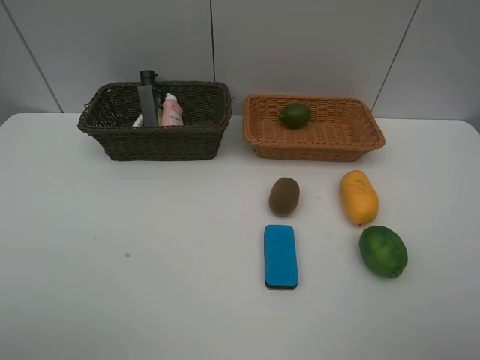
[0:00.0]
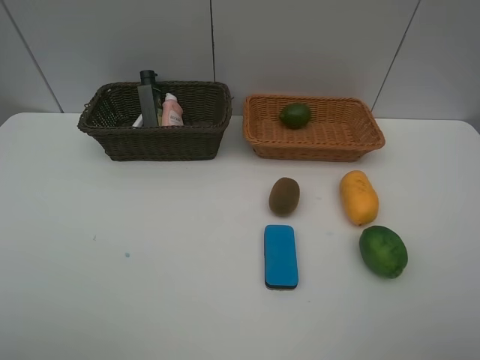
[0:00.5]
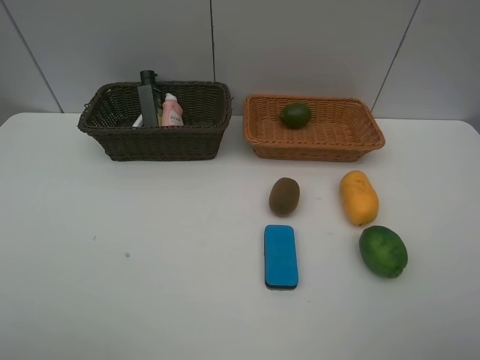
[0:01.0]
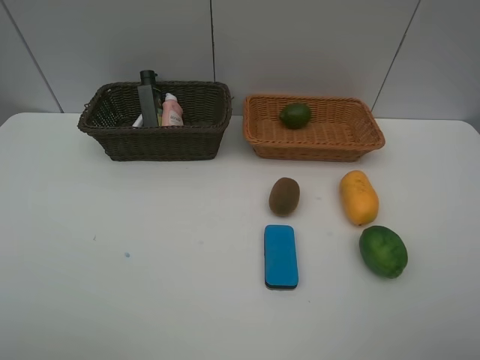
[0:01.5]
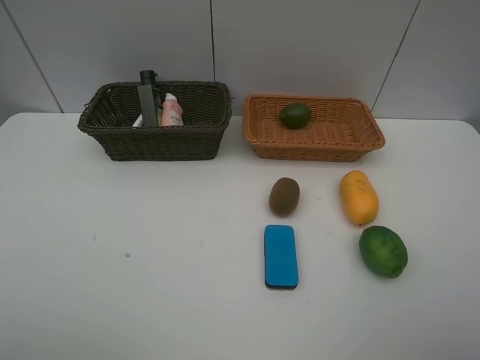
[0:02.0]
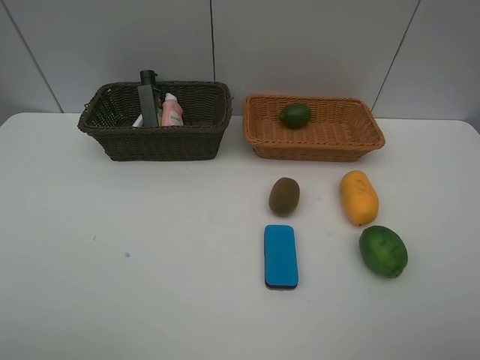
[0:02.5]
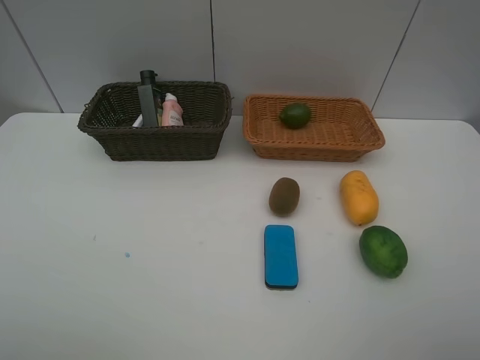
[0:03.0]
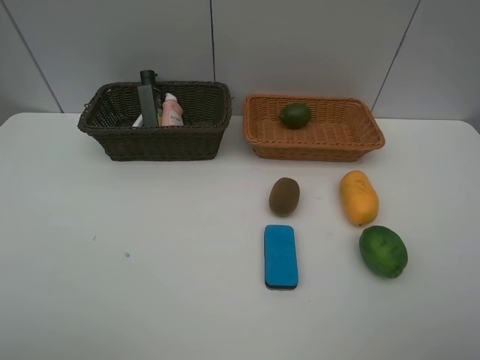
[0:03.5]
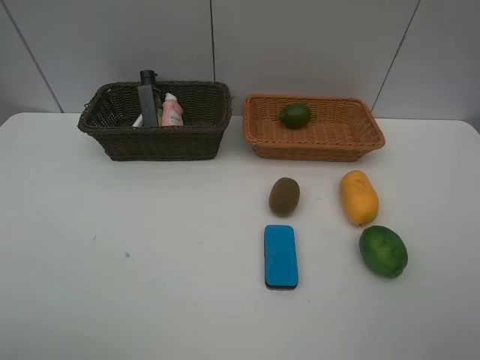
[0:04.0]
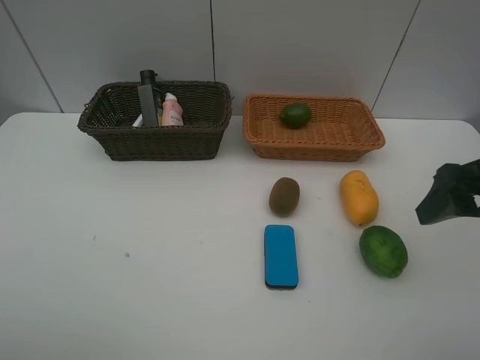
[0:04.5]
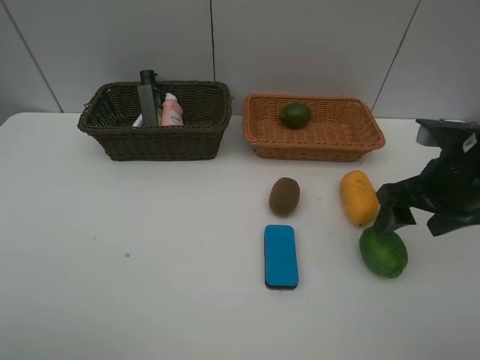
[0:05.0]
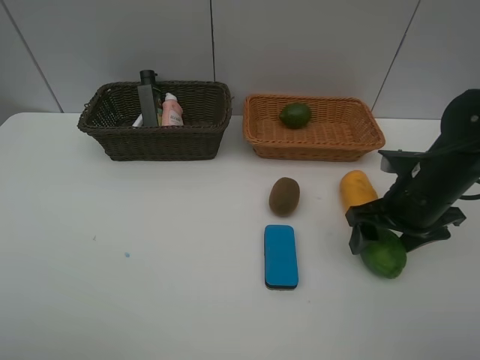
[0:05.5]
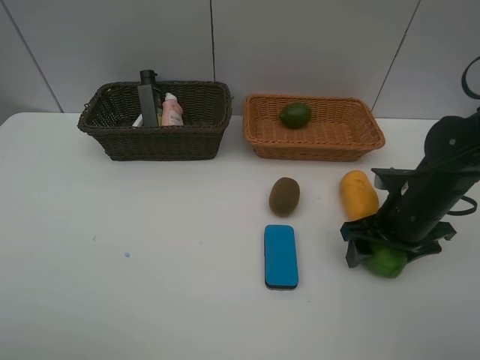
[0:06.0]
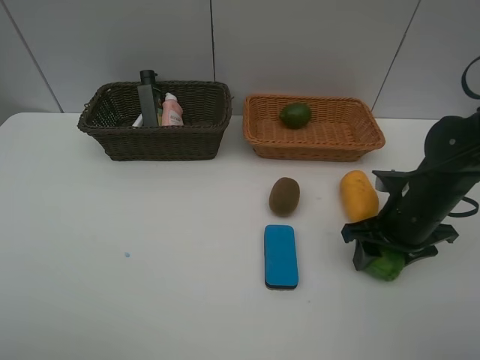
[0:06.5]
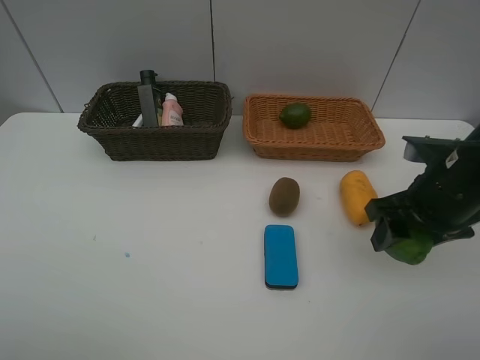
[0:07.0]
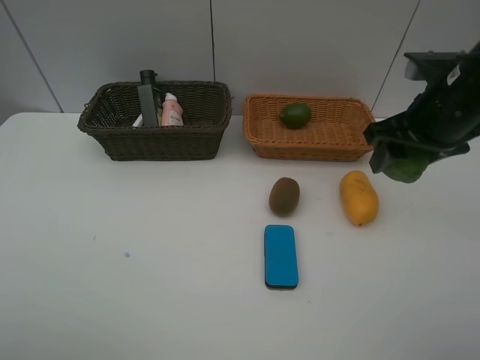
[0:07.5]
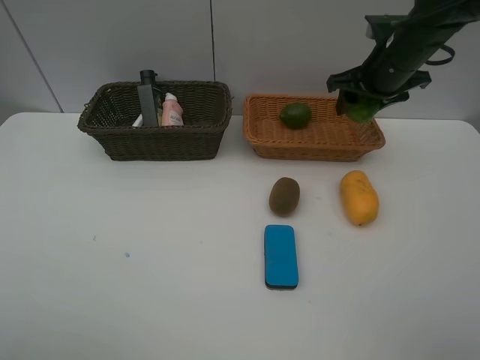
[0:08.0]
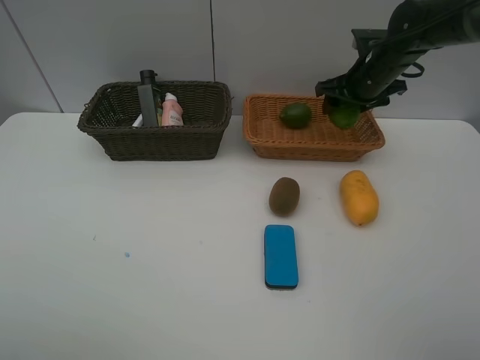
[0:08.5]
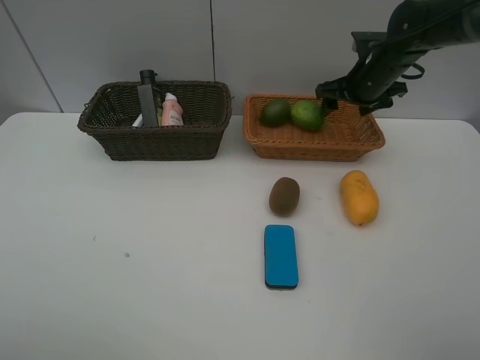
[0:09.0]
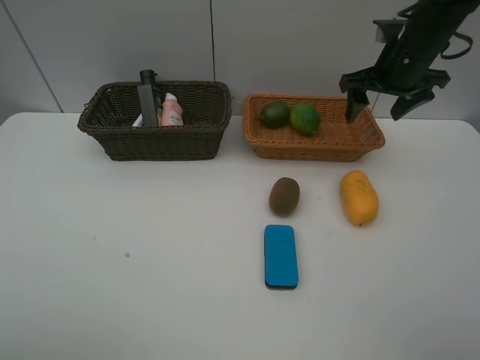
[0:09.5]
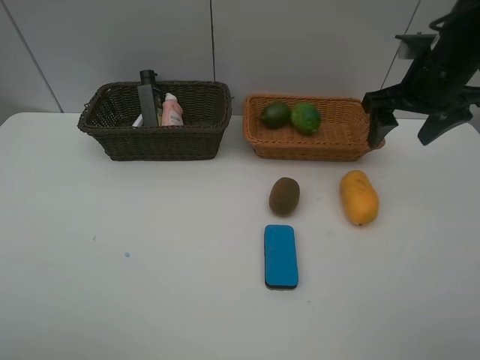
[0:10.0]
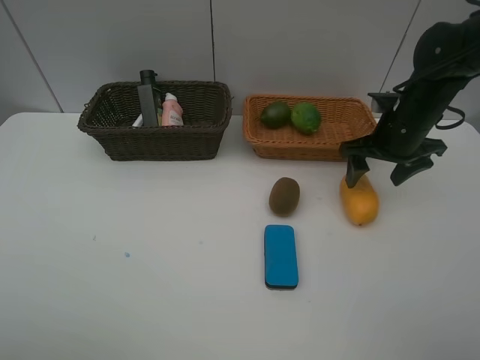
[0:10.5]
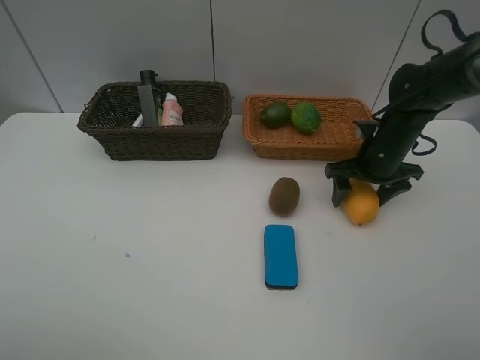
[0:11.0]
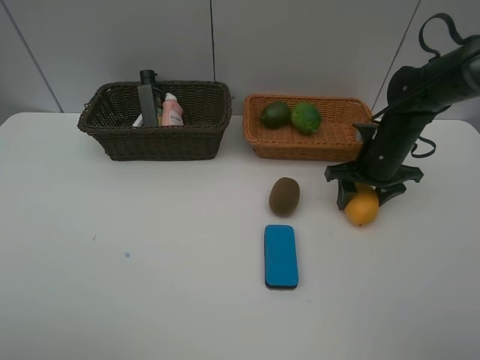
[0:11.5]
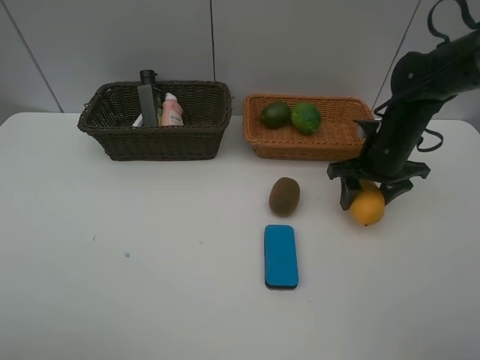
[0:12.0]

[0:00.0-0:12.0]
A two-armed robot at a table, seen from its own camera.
Task of the whole recording: Place multiple objects separately in different baskets.
Step, 0:00.0 to 0:07.0: Pick up the lime with right gripper.
Step, 0:07.5 to 0:09.0: Place the lime in the light basket with right gripper.
0:04.0 to 0:06.0: The right gripper moves downward and forward, about 25 cm.
0:06.0 to 0:08.0: The right gripper shifts approximately 20 cm forward and upward, and closes.
0:08.0 to 0:10.0: The right gripper goes approximately 10 cm backward, and opens its fingers.
0:10.0 to 0:12.0: The right gripper travels downward by approximately 10 cm, and closes up.

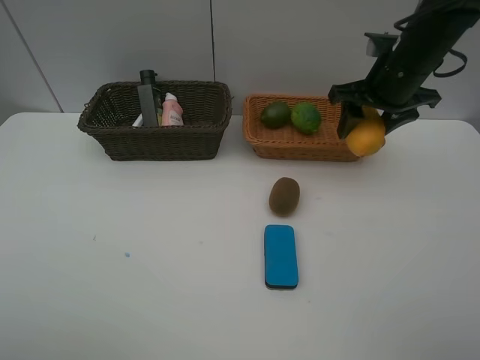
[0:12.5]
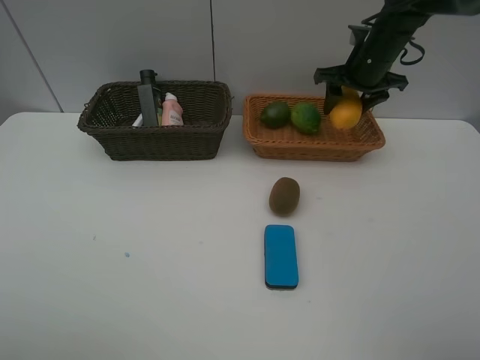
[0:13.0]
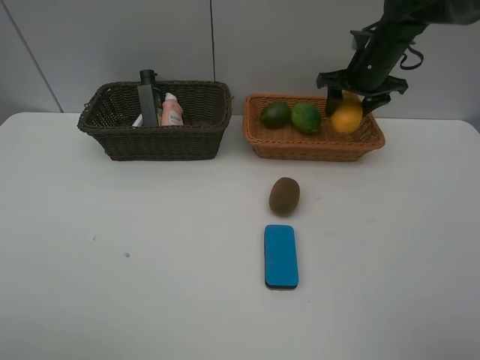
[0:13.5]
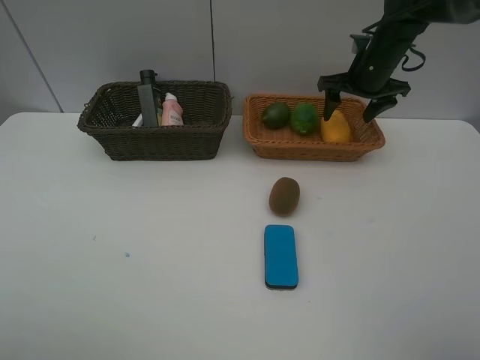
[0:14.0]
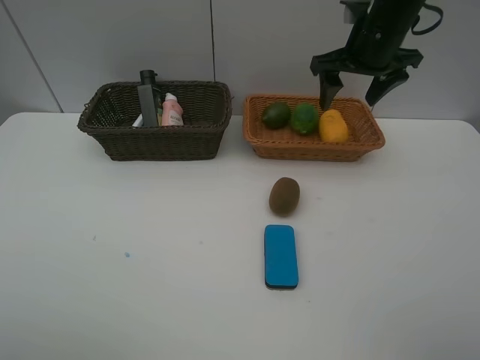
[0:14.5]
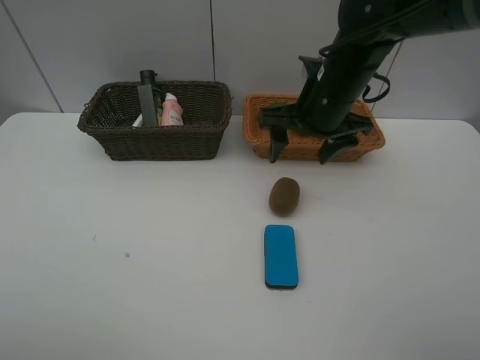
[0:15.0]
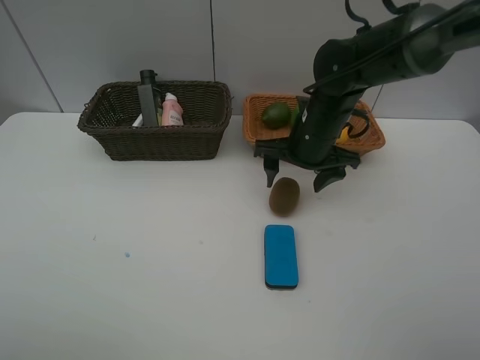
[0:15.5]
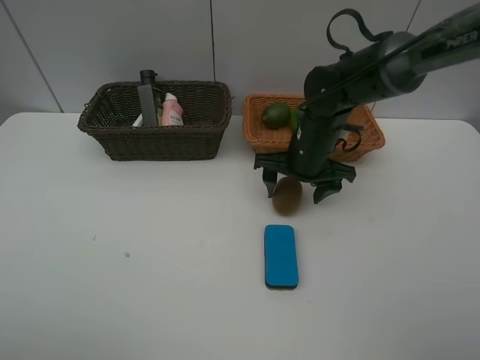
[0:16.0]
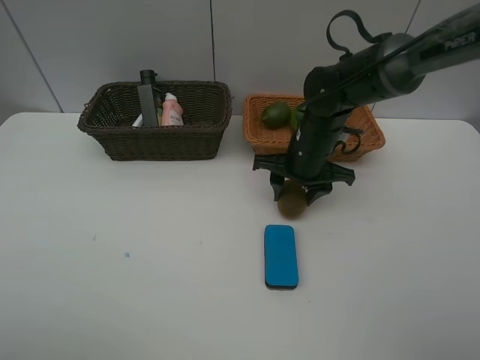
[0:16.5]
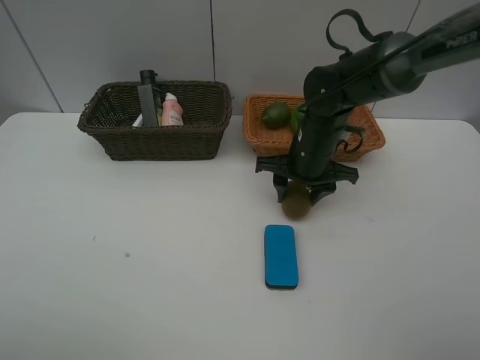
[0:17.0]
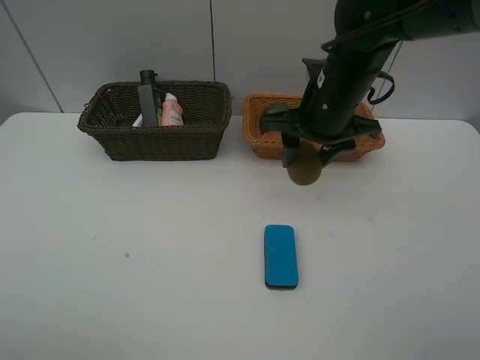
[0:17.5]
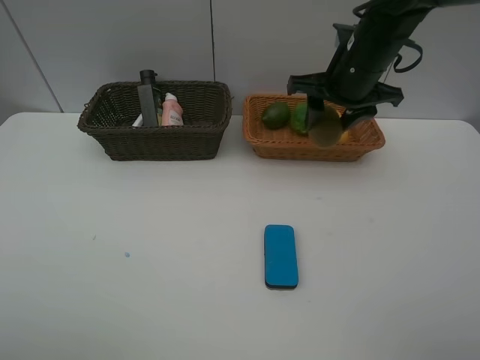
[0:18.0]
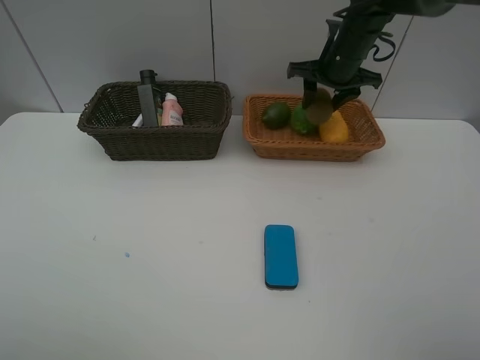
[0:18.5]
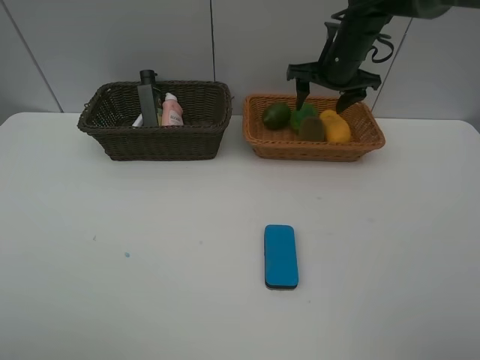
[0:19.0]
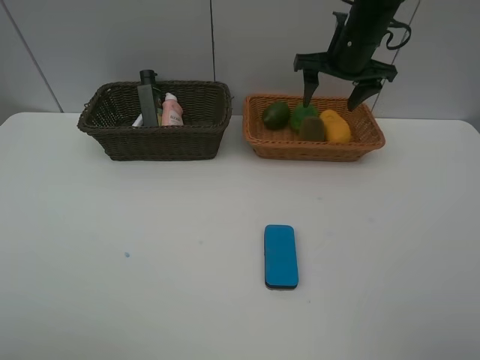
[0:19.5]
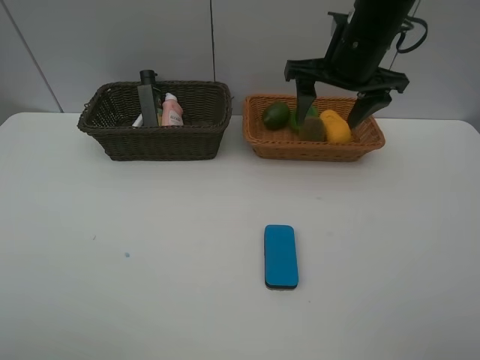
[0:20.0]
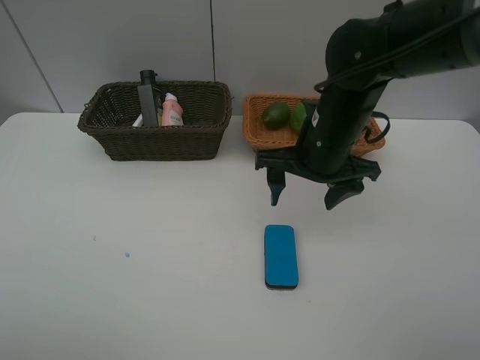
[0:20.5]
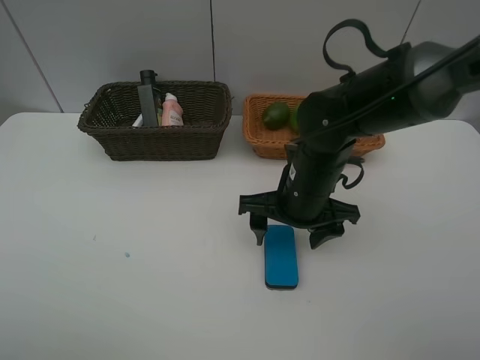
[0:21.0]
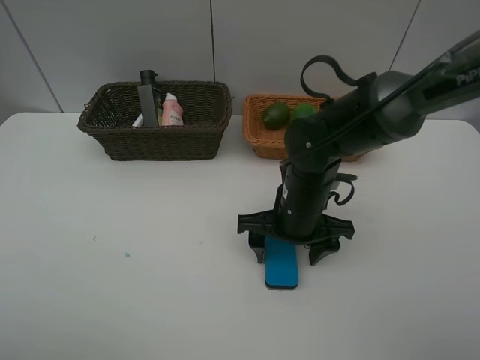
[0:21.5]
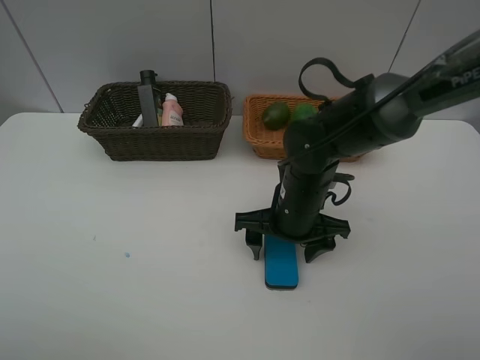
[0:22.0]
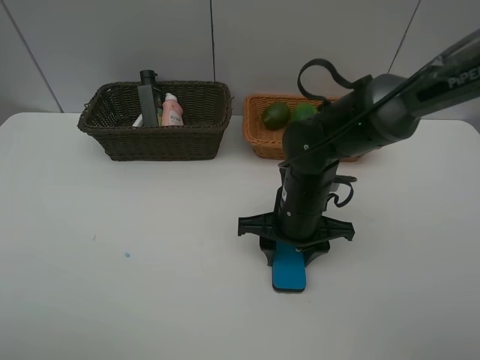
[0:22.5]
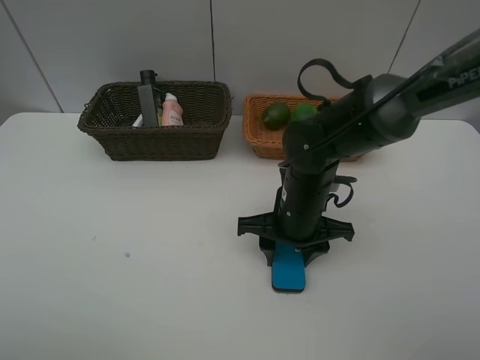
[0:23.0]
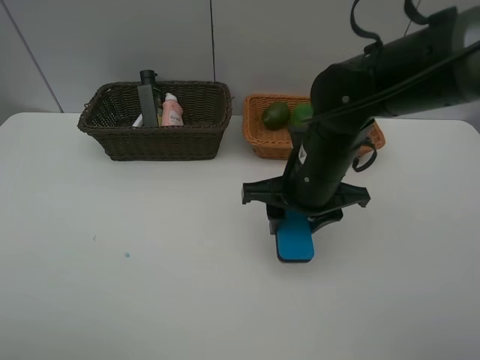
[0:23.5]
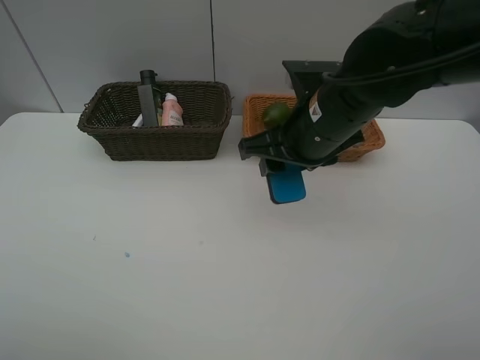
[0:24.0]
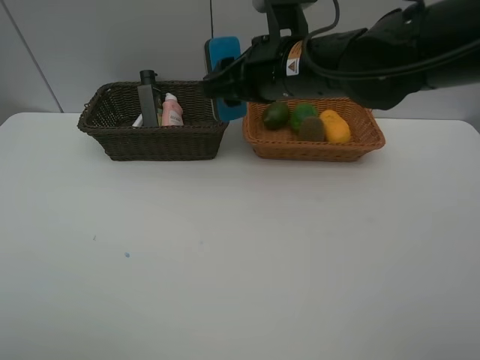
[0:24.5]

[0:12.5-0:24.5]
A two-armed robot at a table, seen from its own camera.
Task of the whole recording: Place multiple objects separately in different baskets.
Step, 0:12.5 to 0:14.0: Place the mango in the light basket with right gripper.
Step, 0:14.5 to 0:17.0: Pick up kiwi with right gripper.
Step, 0:17.5 to 0:19.0: Place the kiwi in the light basket with right gripper.
Step, 0:19.5 to 0:23.5: Pick up blackboard eraser with right gripper.
0:12.5 to 0:14.5: The right gripper goes forward and returns, roughly 10 cm each way, and opens.
0:14.5 to 0:16.5: The right gripper shifts about 15 cm downward and to the left, and closes.
0:16.5 to 0:18.5: The right gripper moves forward, upward and to the right, about 15 cm.
0:18.5 to 0:20.5: The right gripper goes about 20 cm backward, and opens its fingers.
0:20.5 to 0:22.5: The right gripper goes some 10 cm downward, and closes up.
0:22.5 to 0:24.5: The right gripper shifts roughly 15 cm upward.

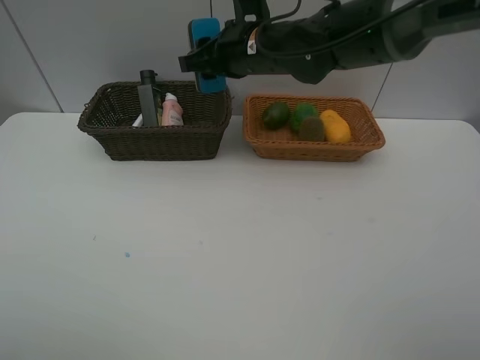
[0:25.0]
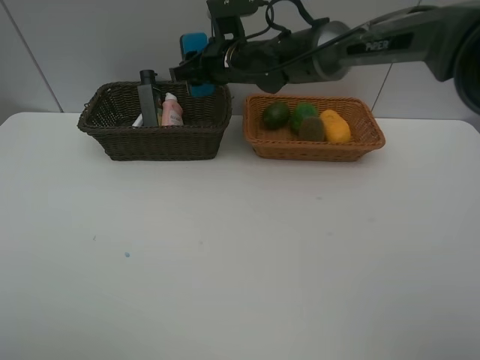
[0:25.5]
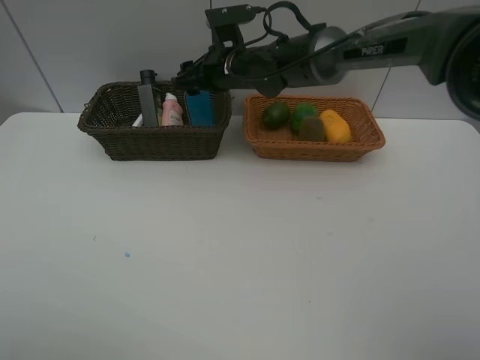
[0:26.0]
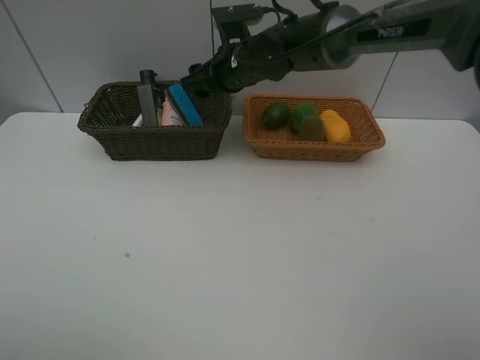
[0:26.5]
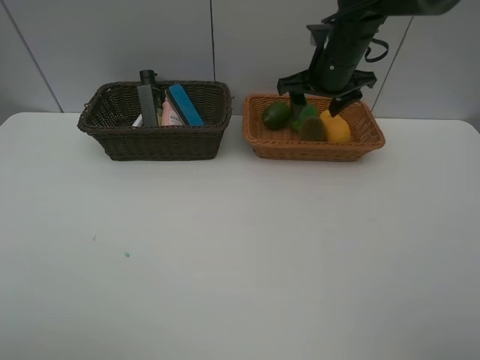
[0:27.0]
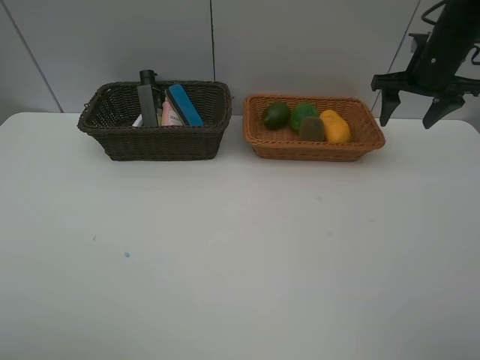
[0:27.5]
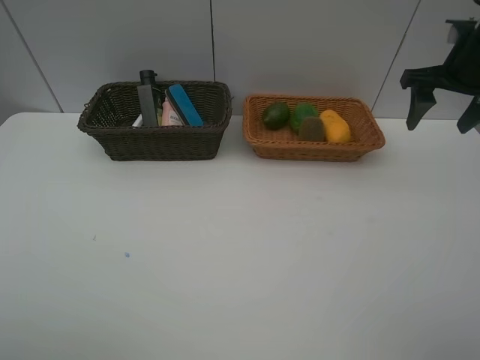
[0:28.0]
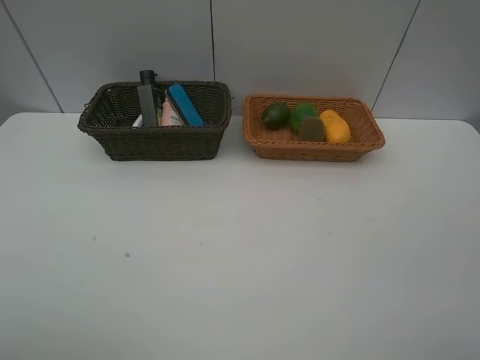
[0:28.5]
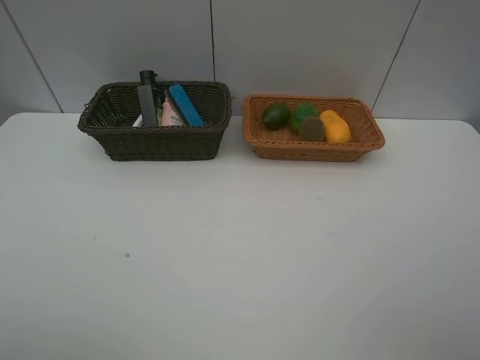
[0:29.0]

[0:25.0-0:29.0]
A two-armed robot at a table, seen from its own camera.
Task of the whole recording: Place multiple objects separately in different baskets.
Step, 0:25.0 to 0:26.5: Place the blackboard eraser in the dark basket with right gripper.
0:25.0 to 0:27.0: The right gripper travels to the right by some 15 cm, and opens its fingers.
0:27.0 to 0:29.0: The right gripper is displaced backward by some 40 cm.
